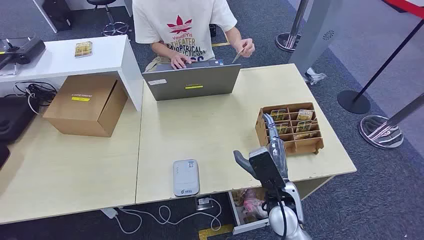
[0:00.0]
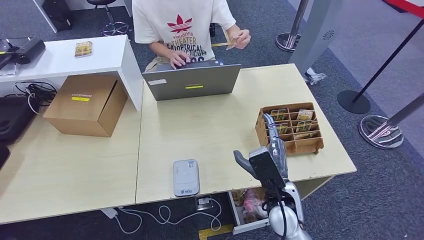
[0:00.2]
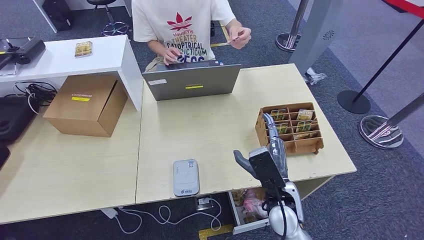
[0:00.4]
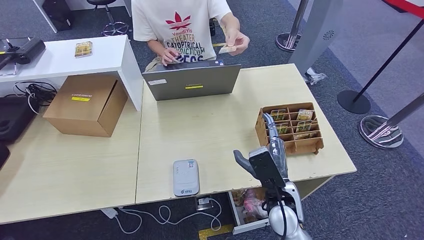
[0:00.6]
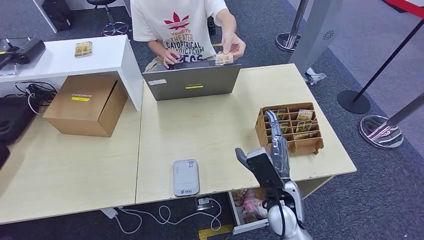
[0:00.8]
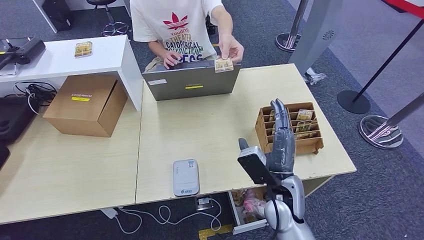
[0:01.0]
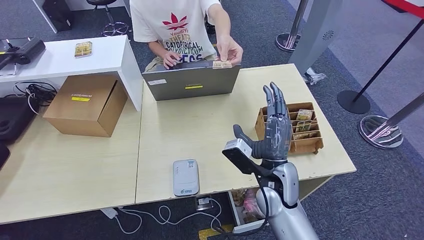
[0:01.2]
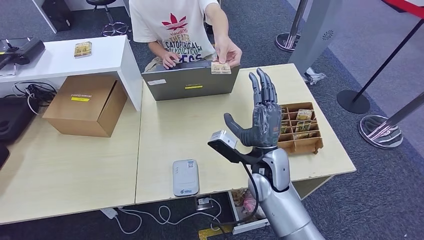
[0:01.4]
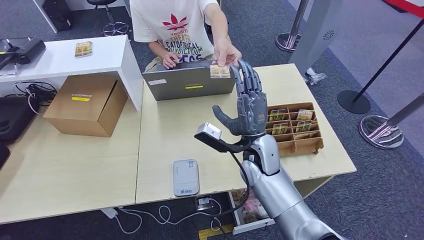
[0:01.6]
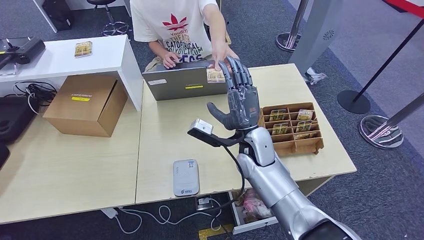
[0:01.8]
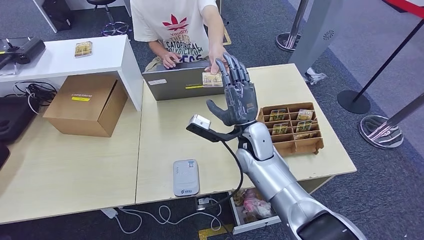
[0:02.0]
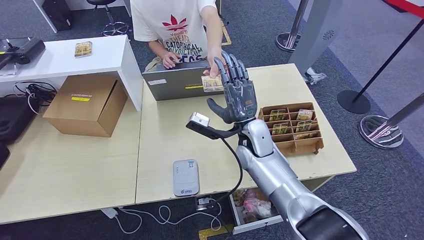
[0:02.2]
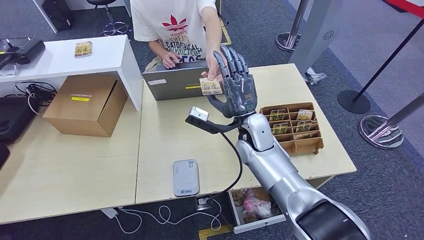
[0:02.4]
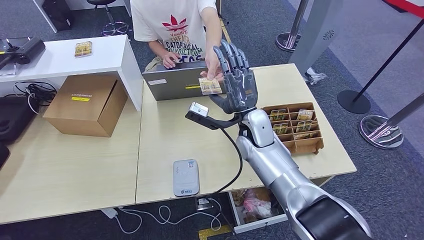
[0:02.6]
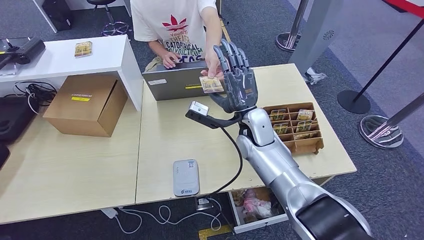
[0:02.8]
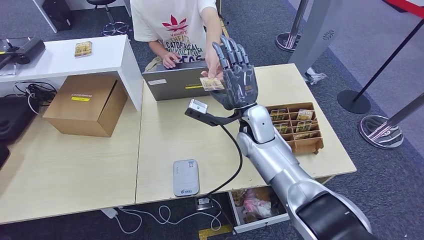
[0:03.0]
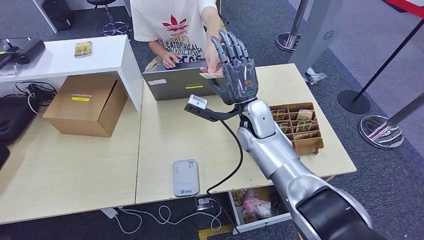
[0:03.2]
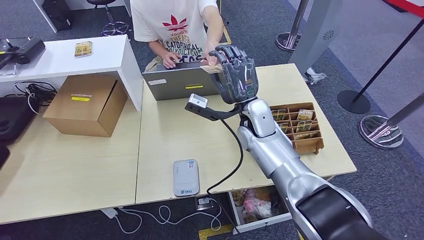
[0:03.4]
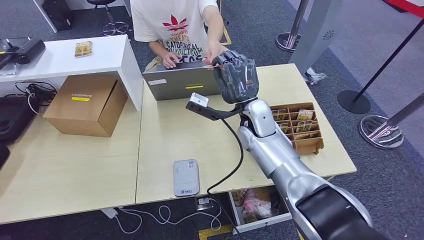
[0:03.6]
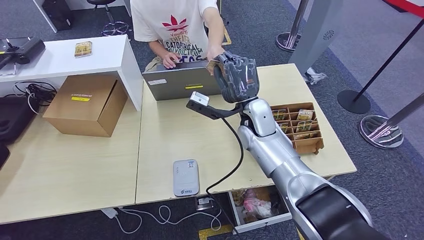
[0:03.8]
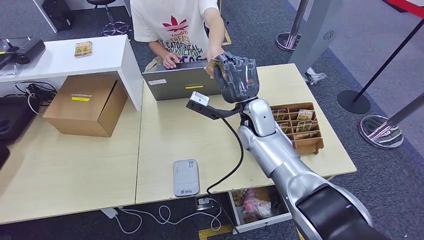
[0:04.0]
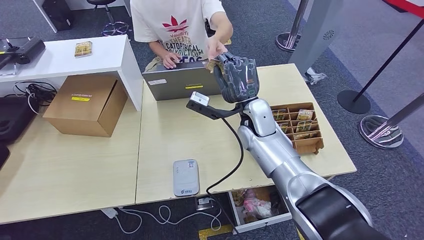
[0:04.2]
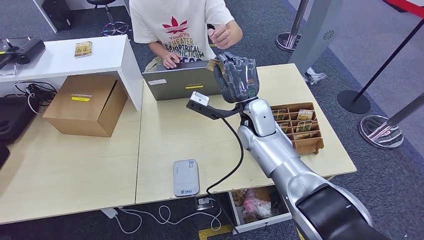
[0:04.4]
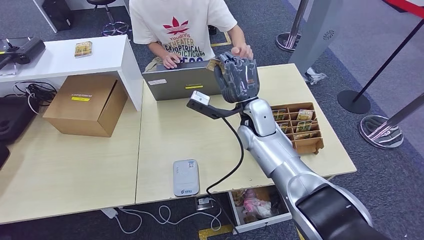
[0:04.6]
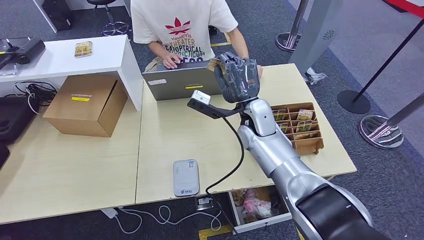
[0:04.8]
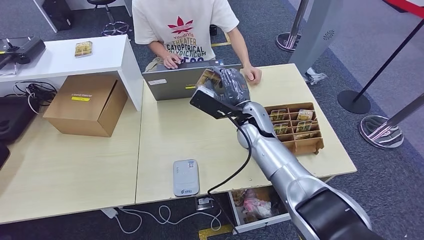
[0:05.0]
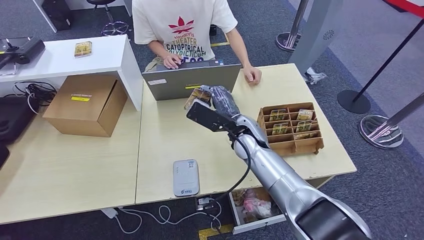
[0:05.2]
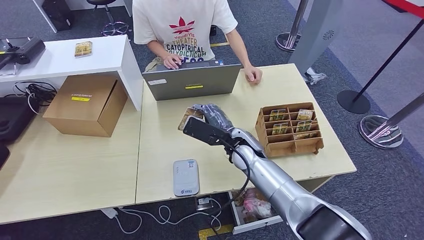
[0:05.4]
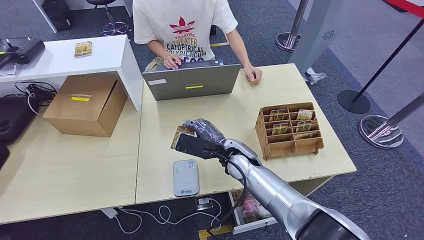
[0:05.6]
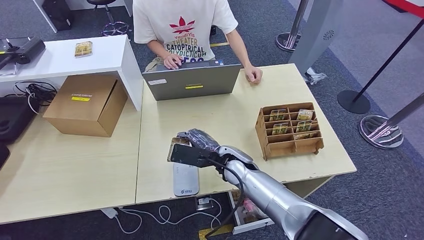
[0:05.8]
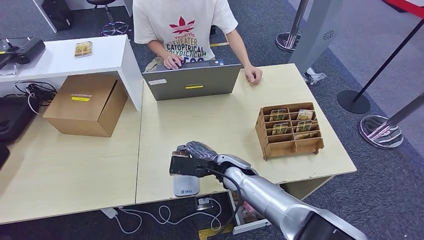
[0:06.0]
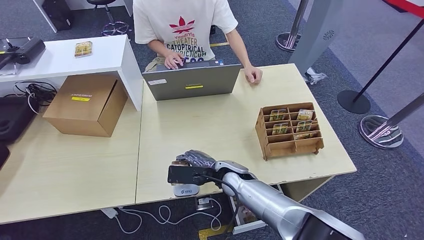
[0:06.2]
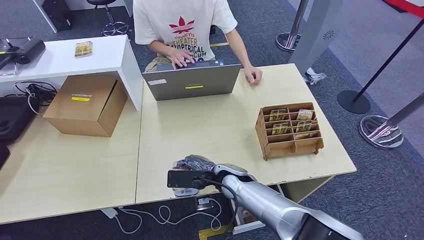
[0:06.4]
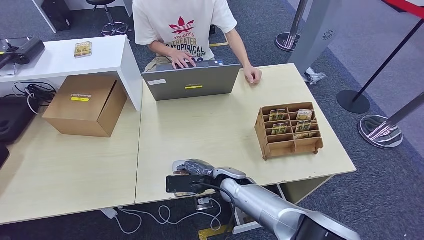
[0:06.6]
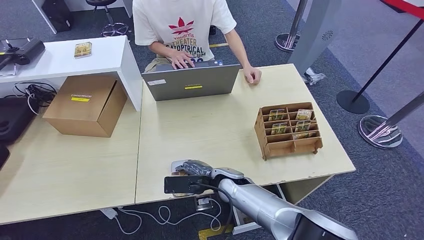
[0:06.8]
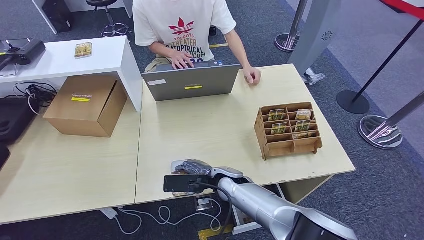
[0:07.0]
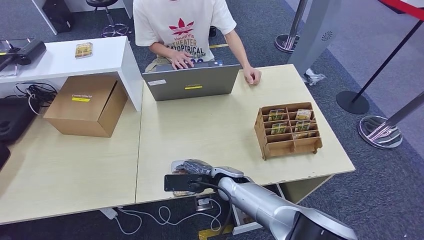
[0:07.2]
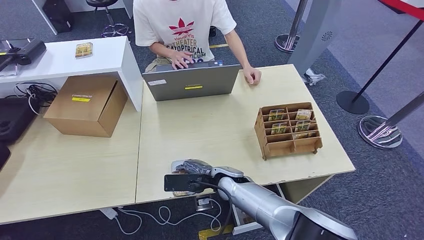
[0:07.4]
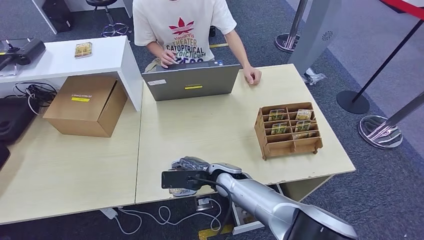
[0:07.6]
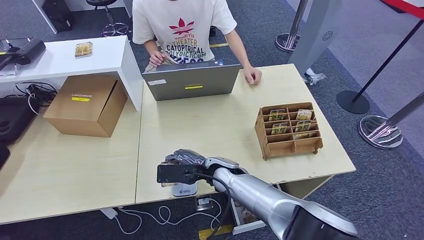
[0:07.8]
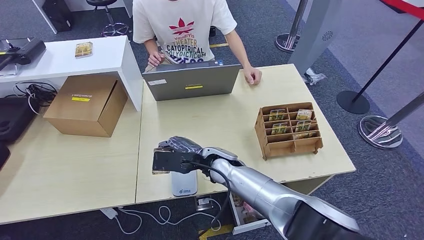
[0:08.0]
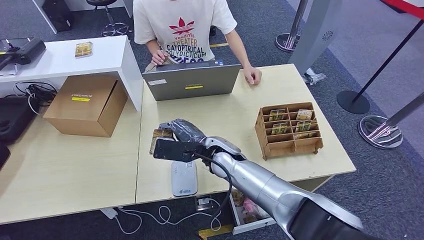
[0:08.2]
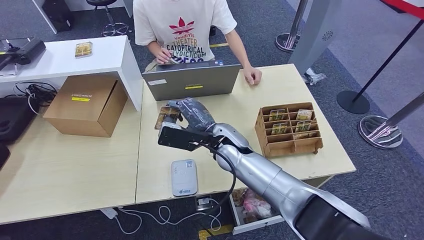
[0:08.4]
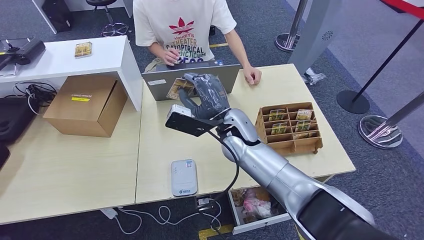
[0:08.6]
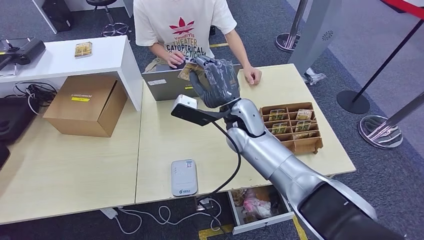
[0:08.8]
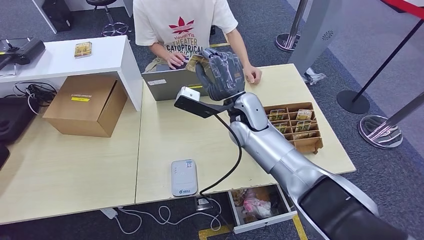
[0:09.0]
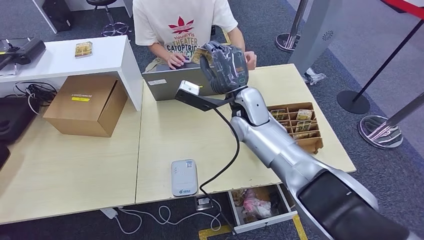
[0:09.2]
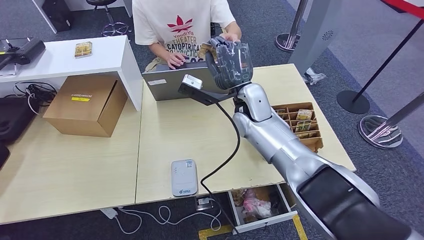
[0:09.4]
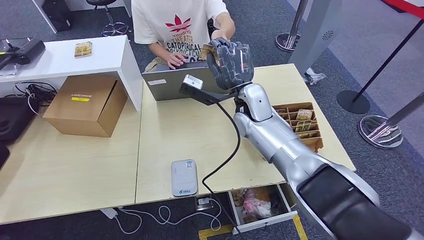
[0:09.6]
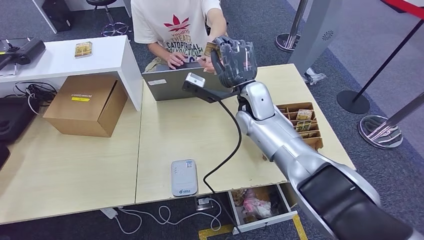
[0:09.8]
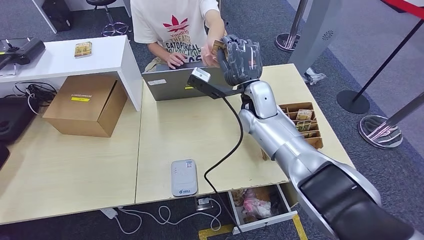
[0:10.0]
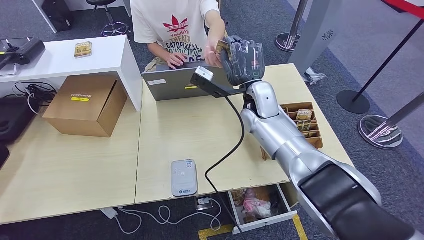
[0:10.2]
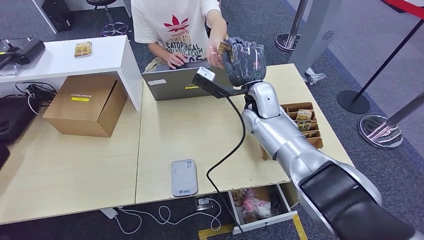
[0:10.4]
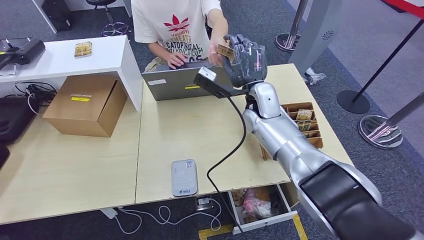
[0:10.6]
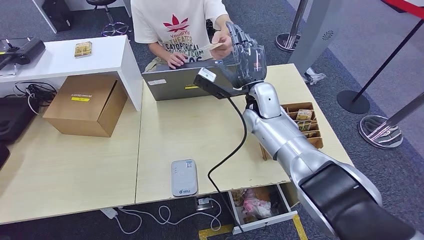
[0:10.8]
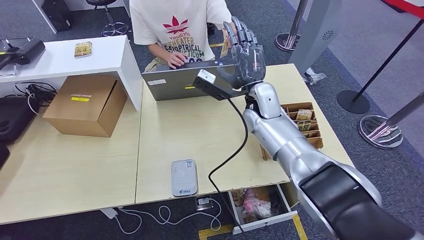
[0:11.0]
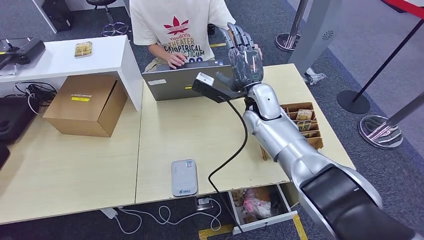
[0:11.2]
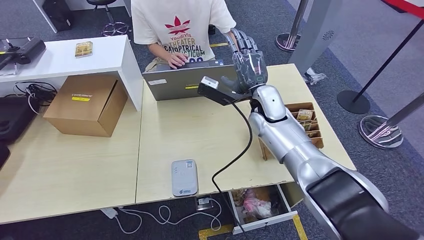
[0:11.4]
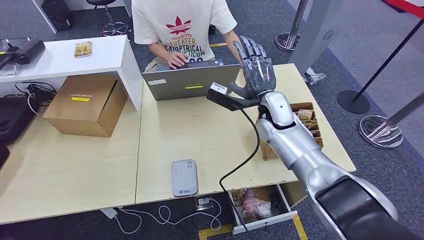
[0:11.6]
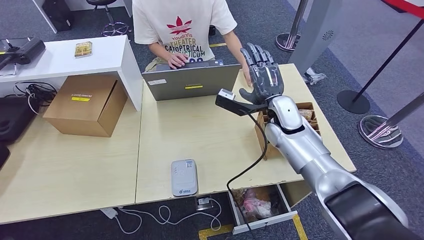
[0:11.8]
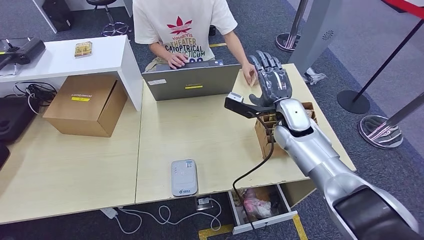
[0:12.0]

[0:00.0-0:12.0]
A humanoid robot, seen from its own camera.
Step, 0:00.0 to 0:04.2: Take the ID card from the person's hand.
Step, 0:04.4 to 0:07.0: Place the ID card on the card reader.
Step, 0:07.2 to 0:10.6: Hand the ID card to the person.
0:01.6 to 0:03.0: The right hand moves forward, approximately 5 cm.
0:03.0 to 0:04.4: The hands stay close to where they were, moving slightly.
0:04.4 to 0:06.0: The right hand heads downward and backward, covering roughly 15 cm.
0:06.0 to 0:07.6: There are only small adjustments of the hands.
0:07.6 to 0:09.0: The right hand heads upward and forward, covering about 20 cm.
0:09.0 to 0:10.4: The hands move only a little.
0:10.4 to 0:12.0: The right hand heads to the right, covering roughly 10 cm.

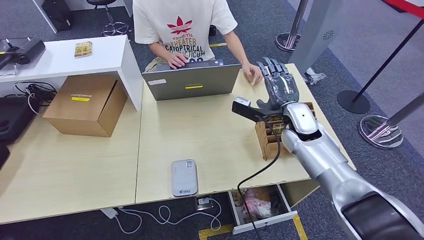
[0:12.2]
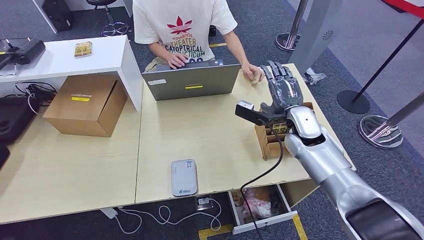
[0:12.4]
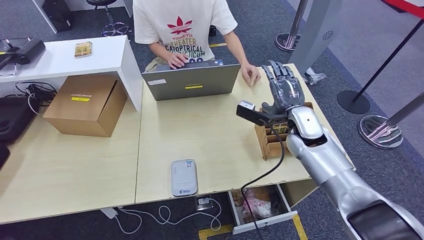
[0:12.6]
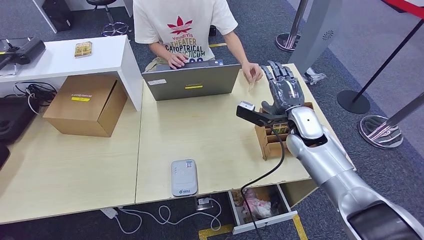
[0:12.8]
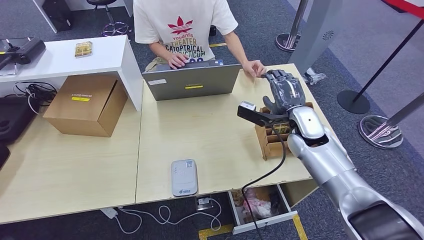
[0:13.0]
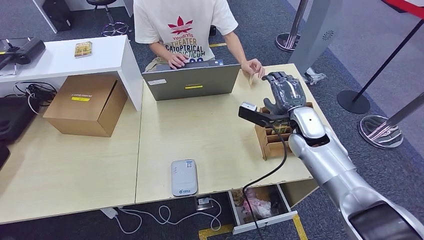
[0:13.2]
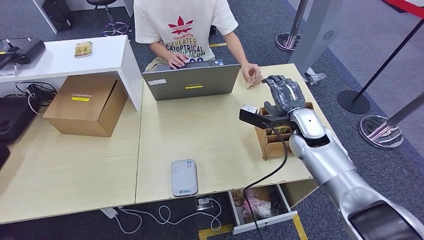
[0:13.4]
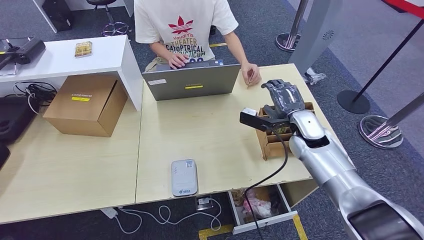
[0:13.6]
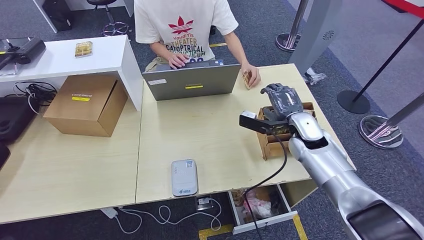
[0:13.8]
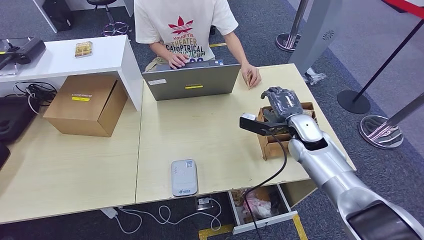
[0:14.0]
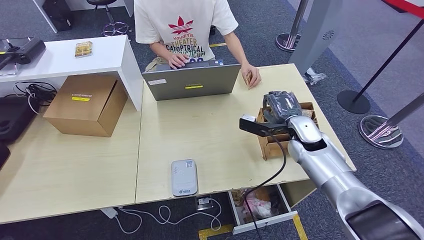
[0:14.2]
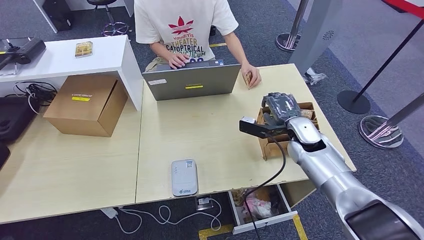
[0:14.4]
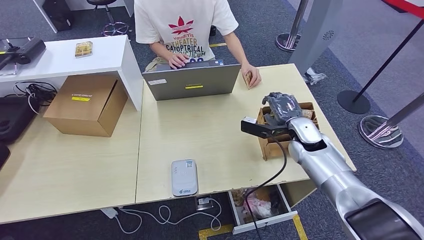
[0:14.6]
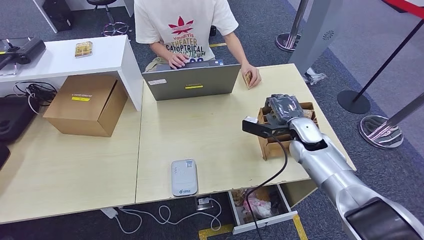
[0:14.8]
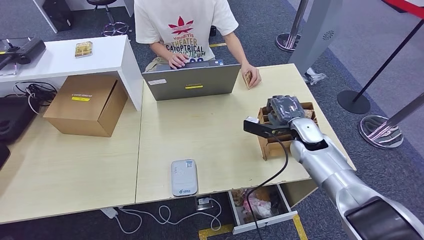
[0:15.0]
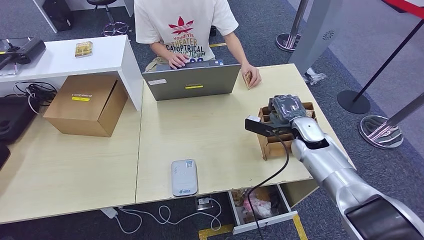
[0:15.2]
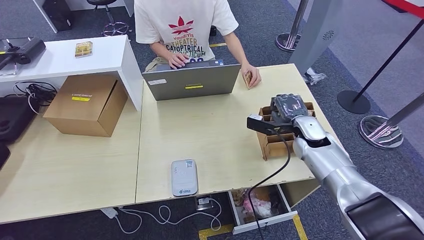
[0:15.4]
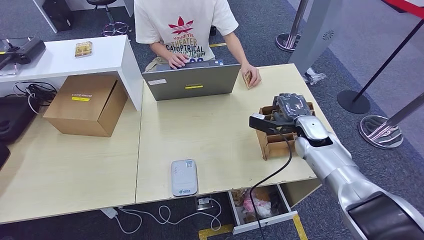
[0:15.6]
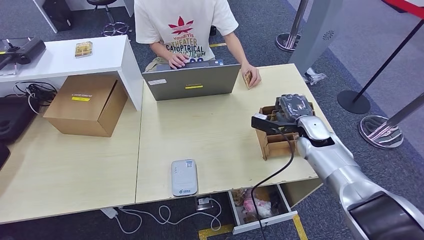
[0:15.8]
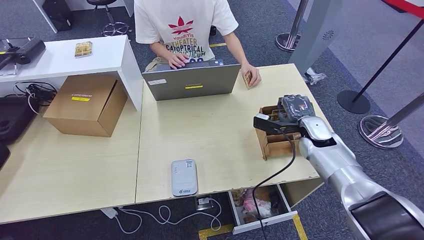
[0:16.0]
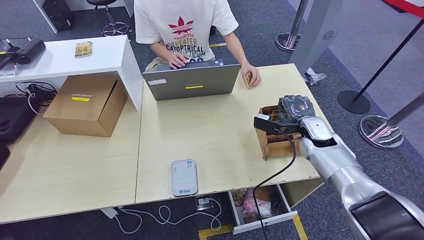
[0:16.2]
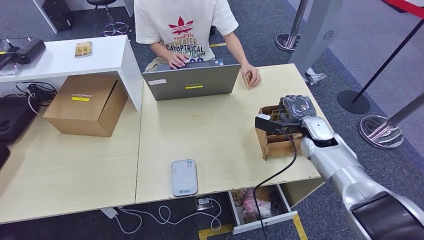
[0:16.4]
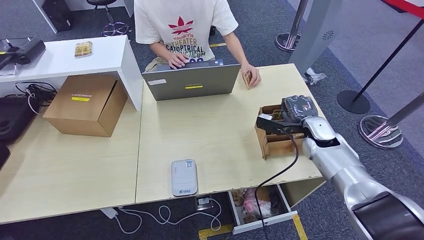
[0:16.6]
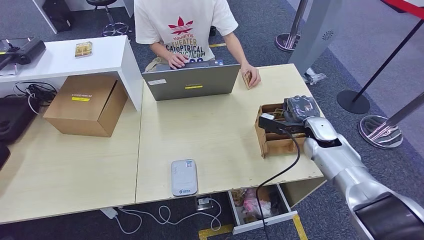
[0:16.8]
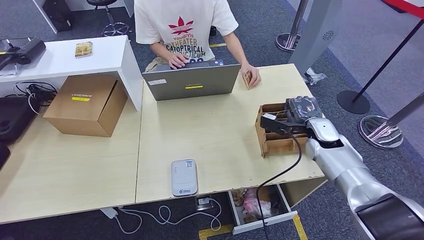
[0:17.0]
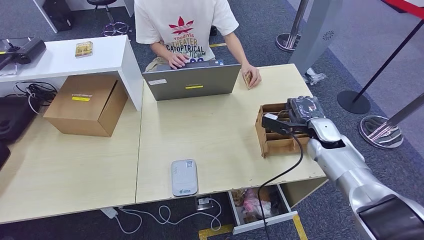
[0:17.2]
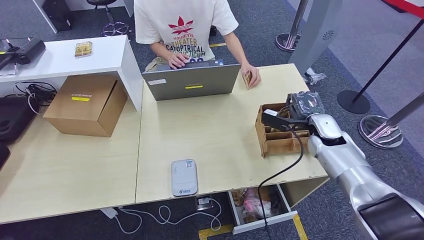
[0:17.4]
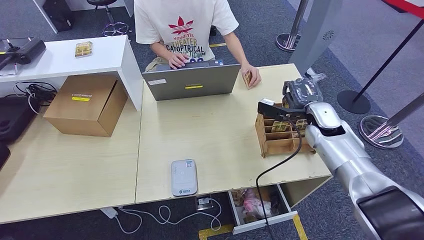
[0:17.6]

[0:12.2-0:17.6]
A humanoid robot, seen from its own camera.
Step, 0:12.2 to 0:17.4: Pick up the room key from the key card box.
0:12.2 to 0:13.6: There are only small adjustments of the hands.
0:13.6 to 0:16.2: The hands make only small movements.
0:16.2 to 0:17.6: There are only small adjustments of the hands.
